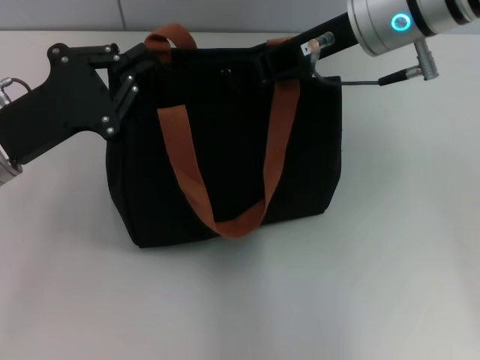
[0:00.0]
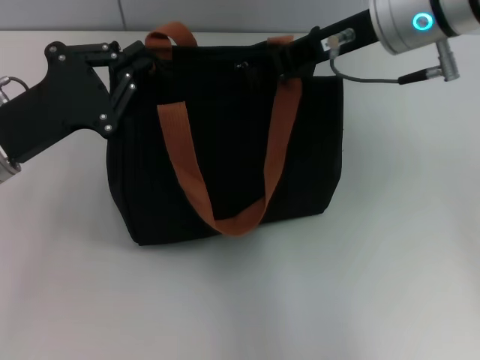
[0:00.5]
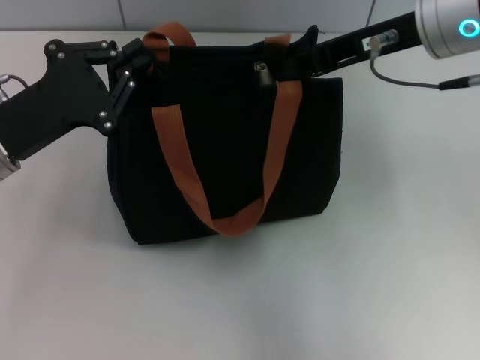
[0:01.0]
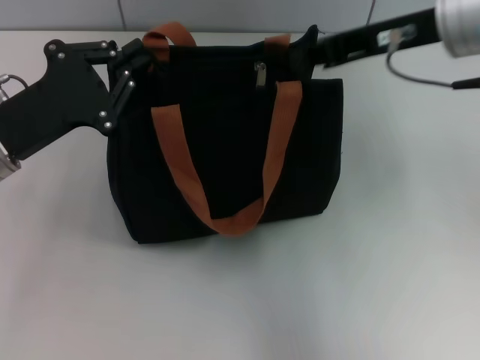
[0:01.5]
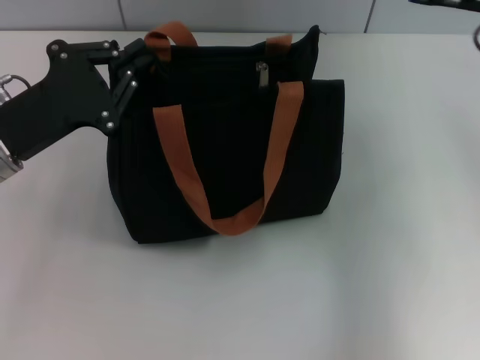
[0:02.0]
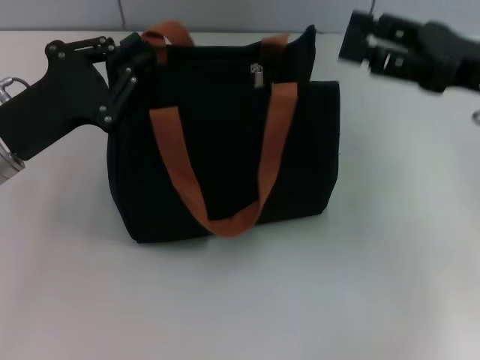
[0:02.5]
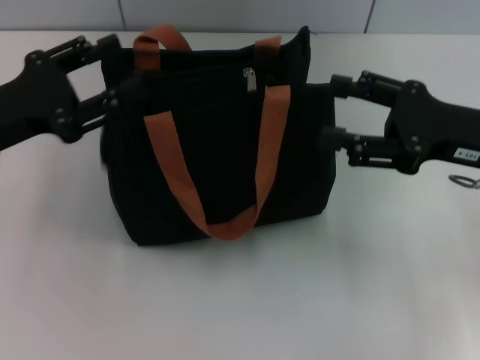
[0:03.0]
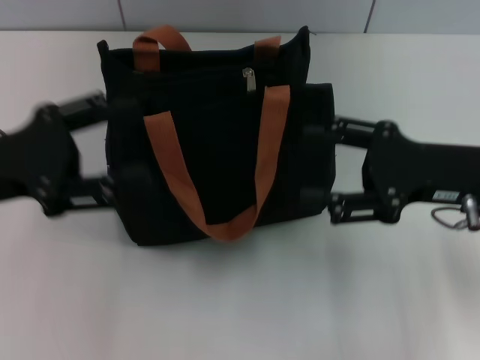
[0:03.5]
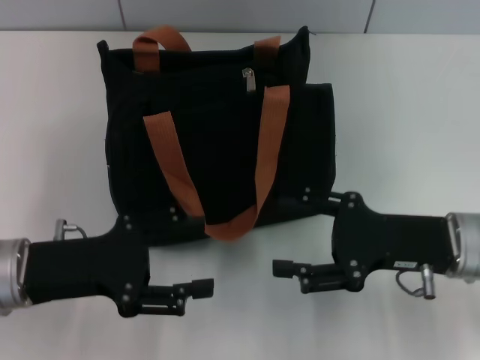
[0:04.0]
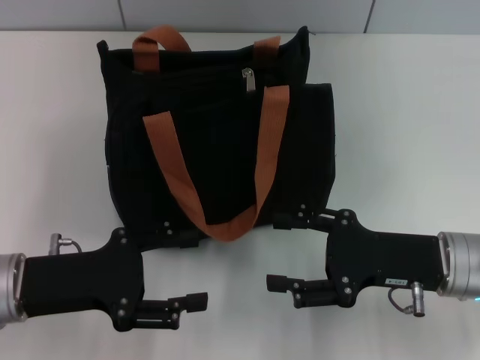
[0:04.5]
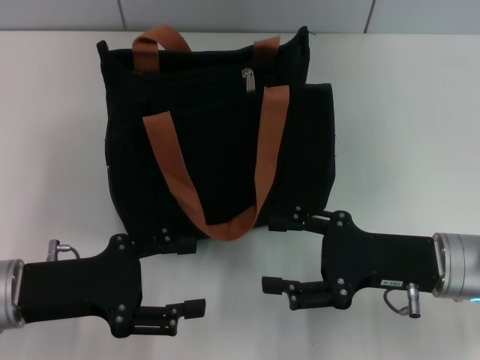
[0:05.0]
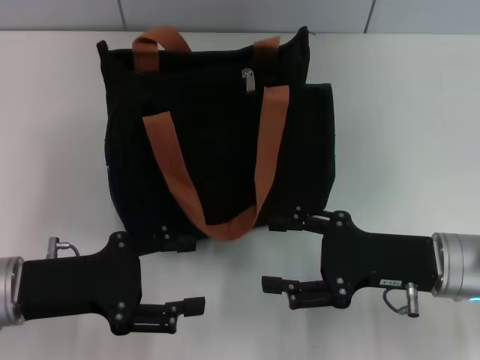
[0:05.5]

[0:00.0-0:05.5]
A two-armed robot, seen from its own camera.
Step, 0:01.5 to 0:03.0: Grab the zipper with your left hand.
0:00.0 to 0:02.0: The right gripper is displaced to the right by some 15 cm.
0:02.0 to 0:03.5: The left gripper shifts by some 5 cm, and opens. Meanwhile the right gripper moves downward and backward, roughly 10 cm, and opens its fingers.
0:03.5 to 0:05.5: Both grippers travel together downward, approximately 10 cm.

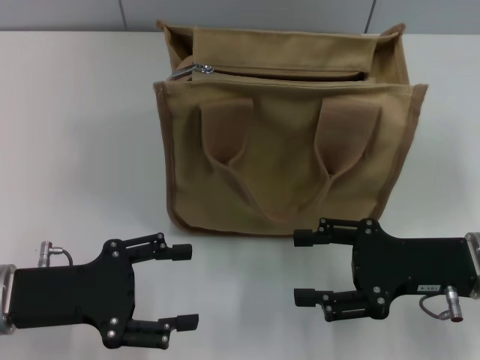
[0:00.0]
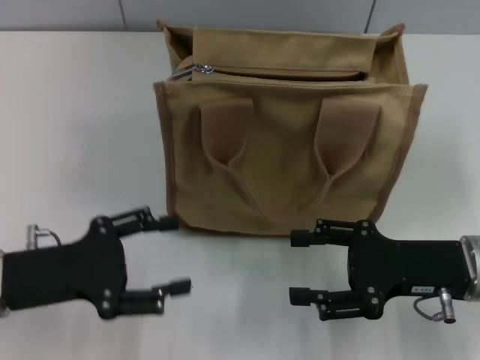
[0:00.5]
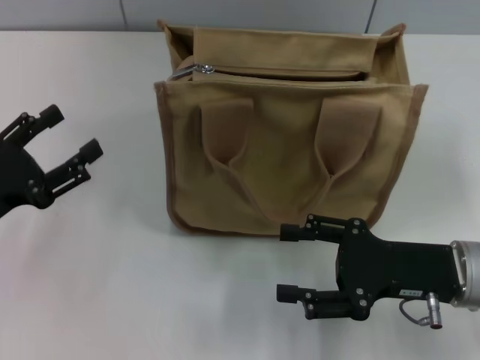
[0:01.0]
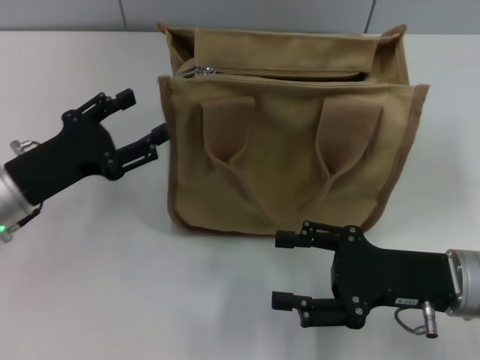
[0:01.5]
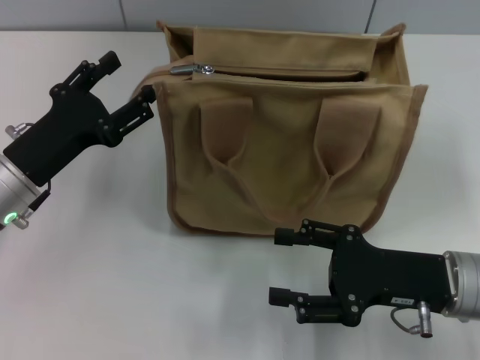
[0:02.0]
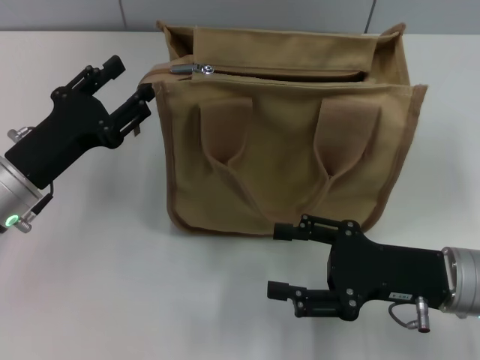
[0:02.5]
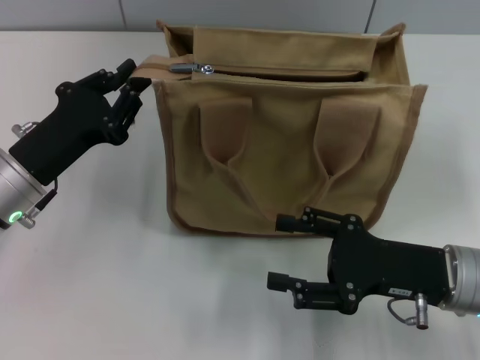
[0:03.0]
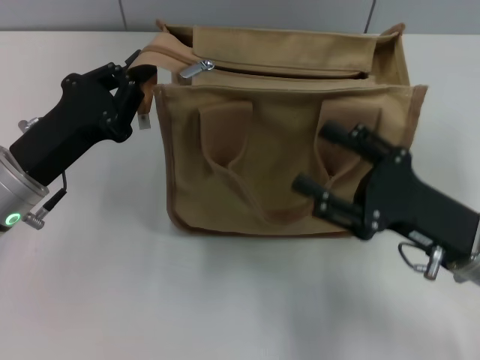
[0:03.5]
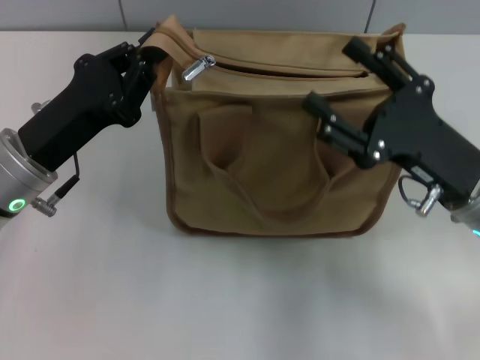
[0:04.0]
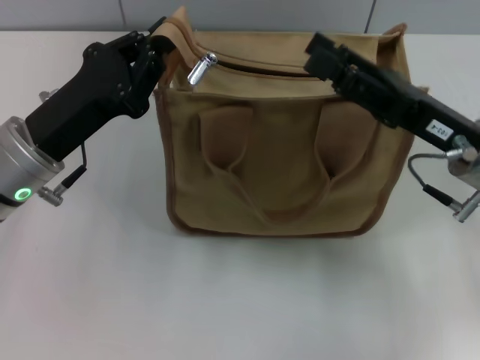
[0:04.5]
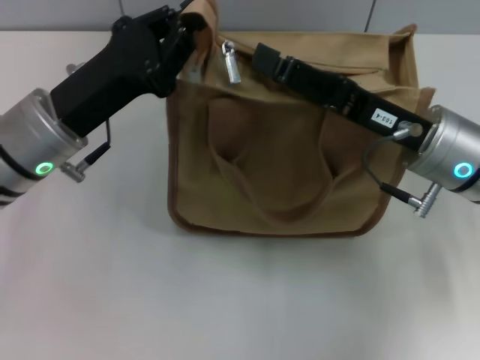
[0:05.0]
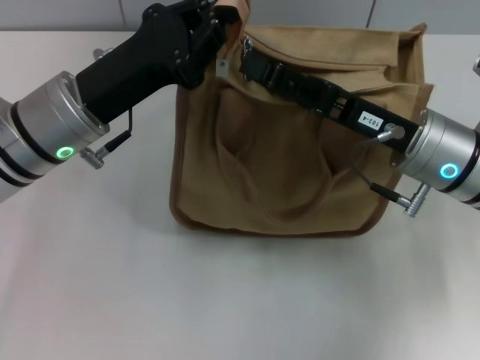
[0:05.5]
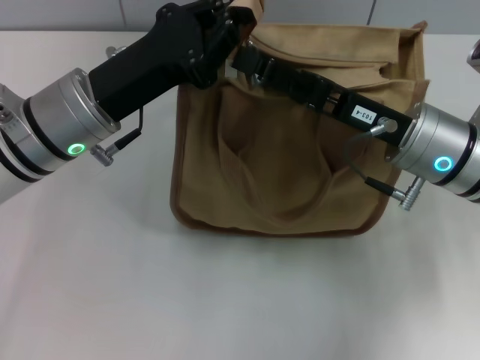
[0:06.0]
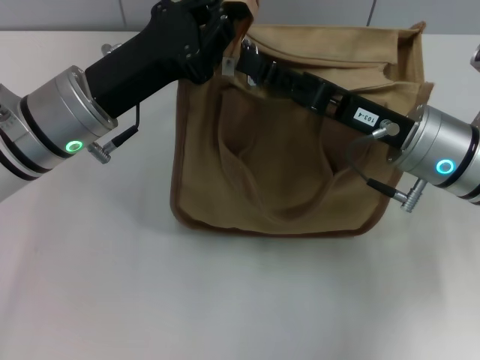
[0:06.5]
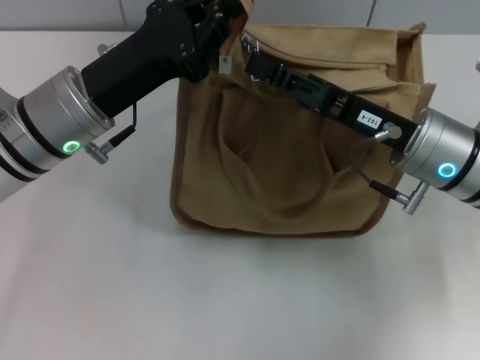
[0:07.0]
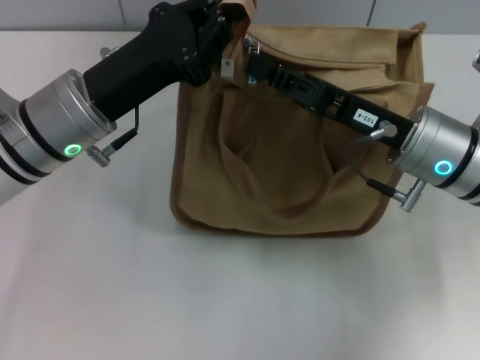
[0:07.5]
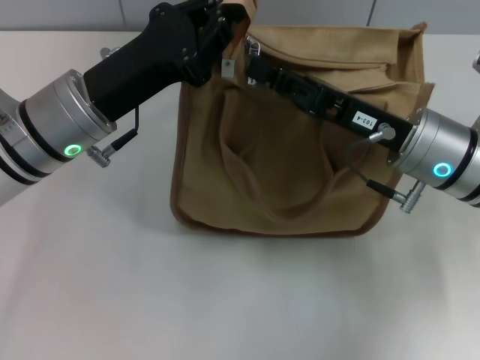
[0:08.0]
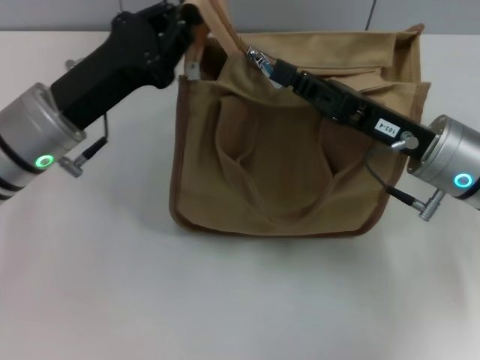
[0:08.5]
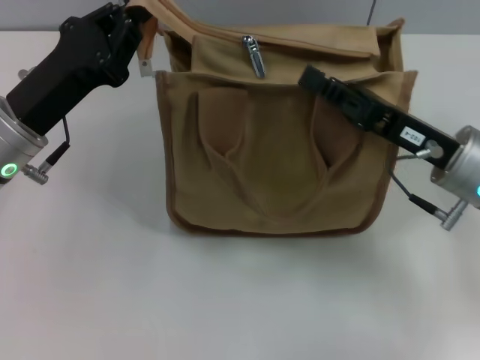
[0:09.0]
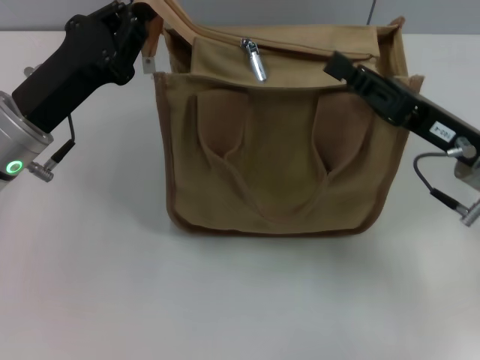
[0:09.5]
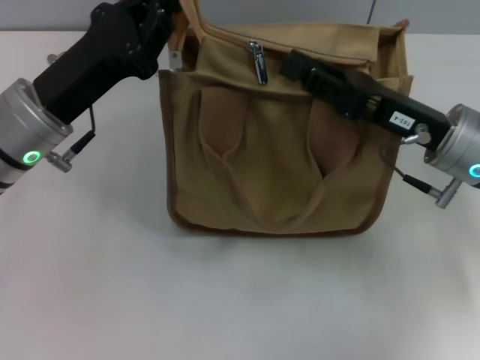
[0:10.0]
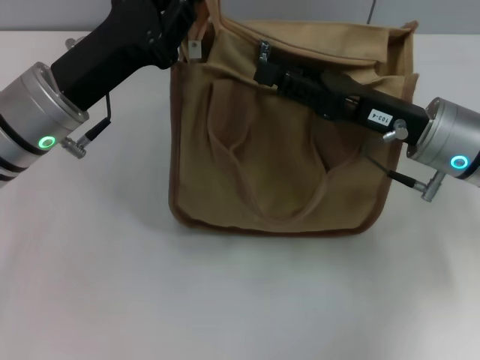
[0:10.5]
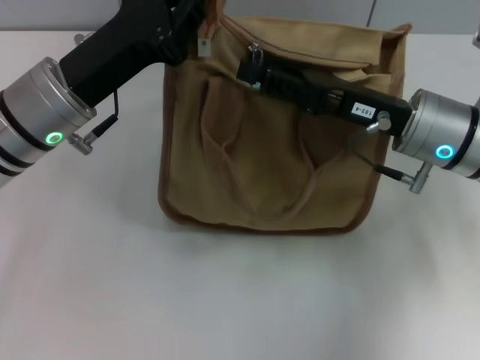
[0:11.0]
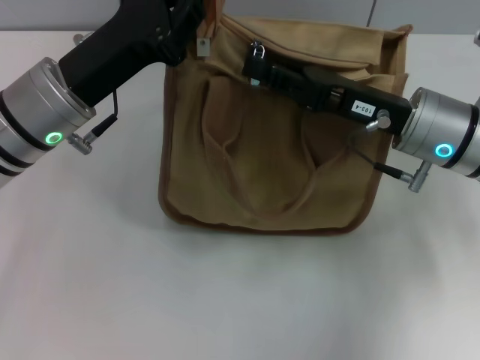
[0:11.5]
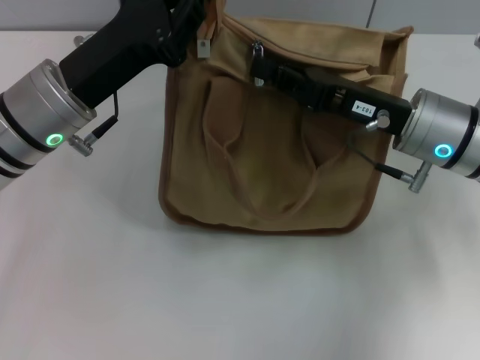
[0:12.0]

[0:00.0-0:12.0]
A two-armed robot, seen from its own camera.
0:00.0 to 0:02.0: The left gripper heads forward, covering approximately 5 cm.
0:02.0 to 0:04.0: The left gripper closes up.
0:04.0 to 0:06.0: The right gripper heads forward, covering approximately 5 cm; the left gripper heads to the right, covering roughly 5 cm.
0:06.0 to 0:08.0: The right gripper closes up.
0:10.0 to 0:12.0: There are only small adjustments of the grippers.

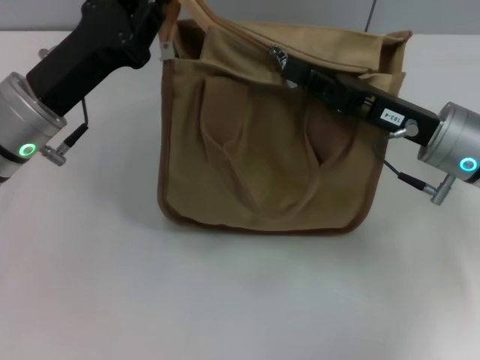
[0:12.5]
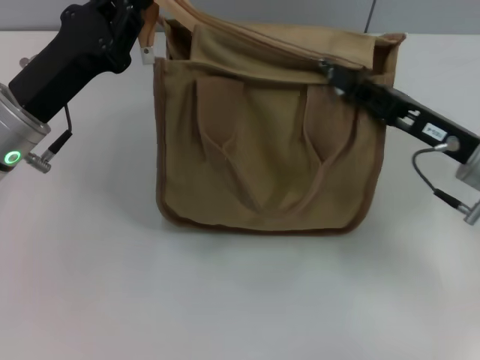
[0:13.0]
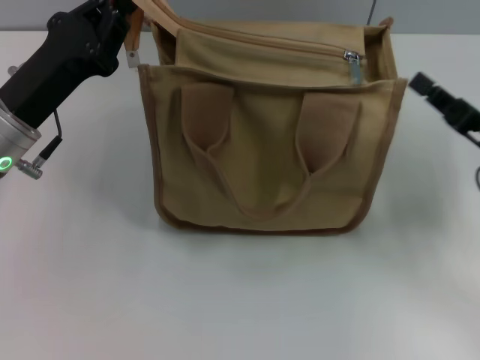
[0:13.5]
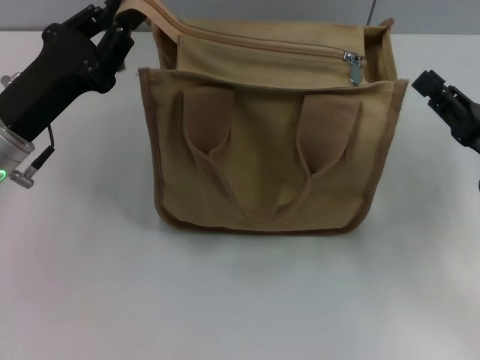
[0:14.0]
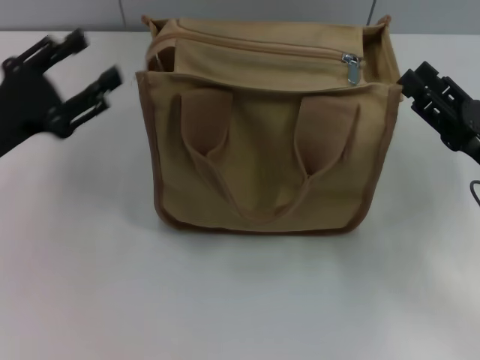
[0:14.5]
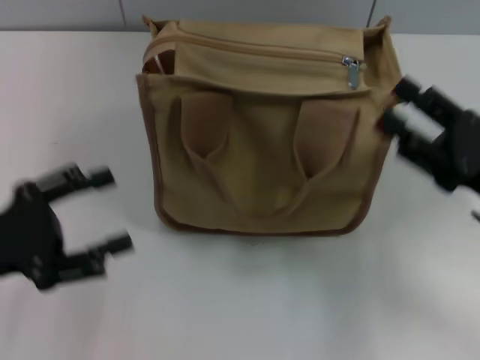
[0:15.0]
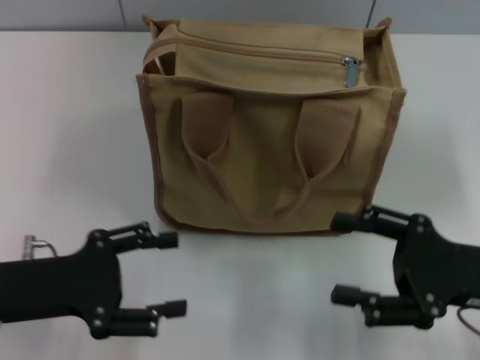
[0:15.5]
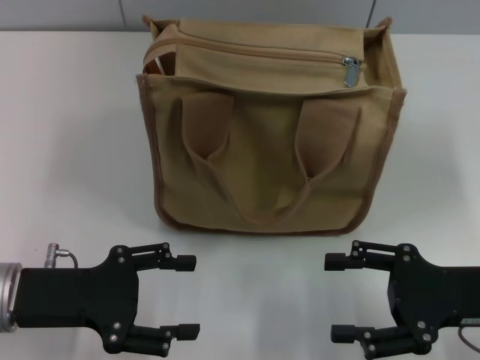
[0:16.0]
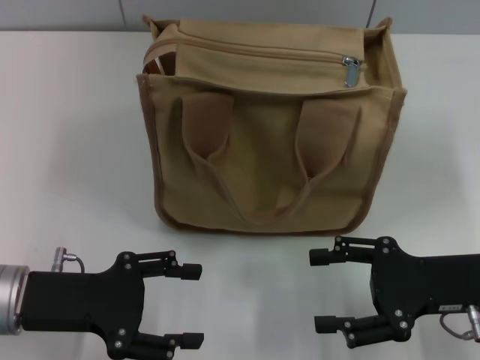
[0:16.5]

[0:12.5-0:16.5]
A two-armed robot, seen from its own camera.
Step, 0:13.5 to 0:14.0: Grab the zipper with your left hand.
0:12.5 to 0:14.5: The right gripper is displaced to the right and backward by some 10 cm, and opens up; the left gripper heads to the left, covering about 10 cm, and opens.
0:14.5 to 0:16.5: The left gripper shifts some 5 cm backward, and opens up.
